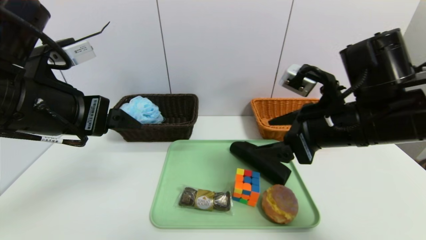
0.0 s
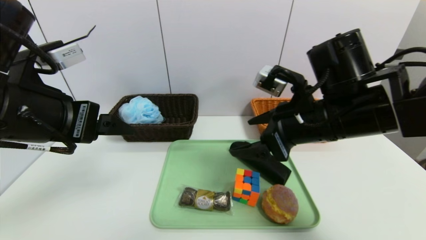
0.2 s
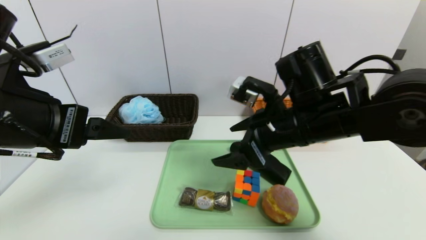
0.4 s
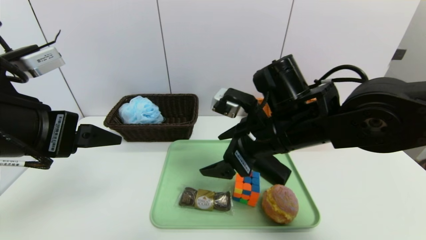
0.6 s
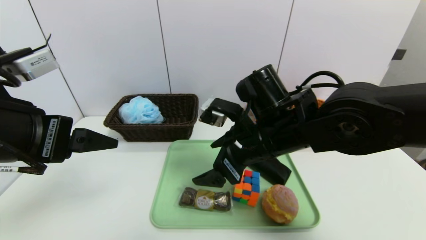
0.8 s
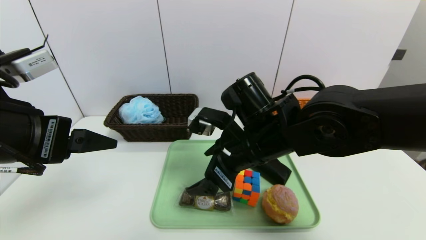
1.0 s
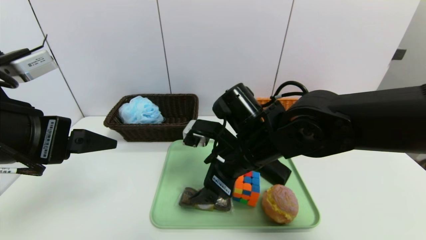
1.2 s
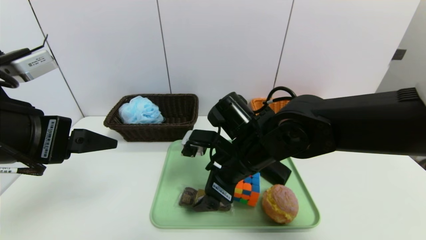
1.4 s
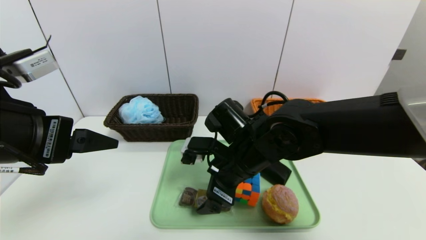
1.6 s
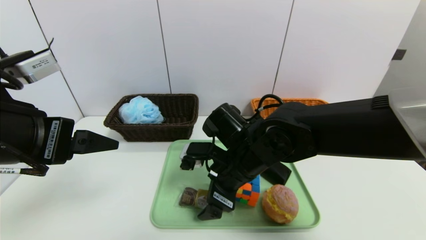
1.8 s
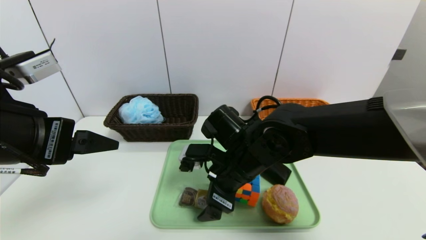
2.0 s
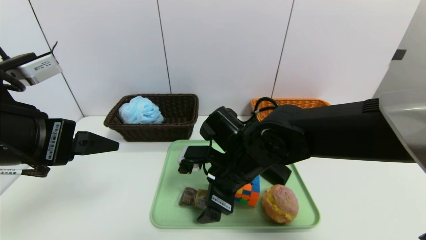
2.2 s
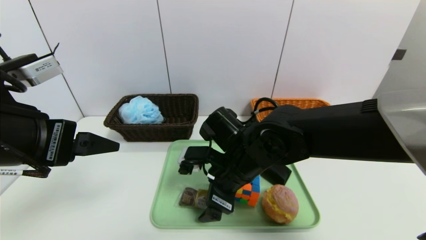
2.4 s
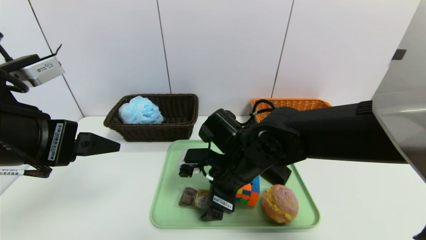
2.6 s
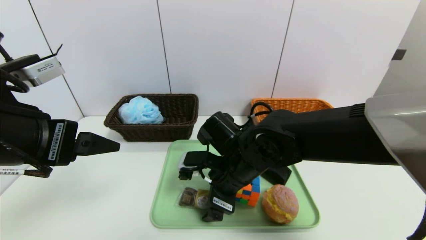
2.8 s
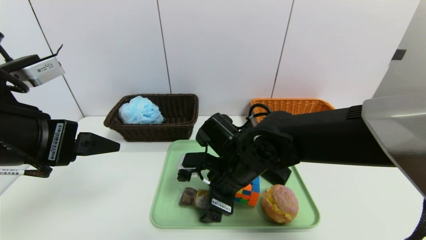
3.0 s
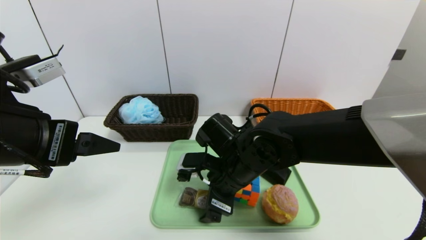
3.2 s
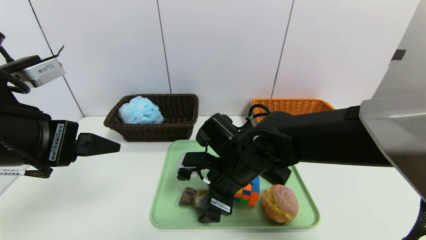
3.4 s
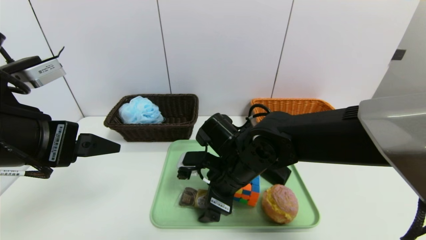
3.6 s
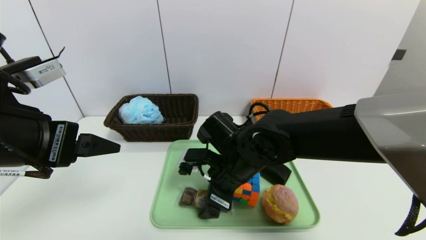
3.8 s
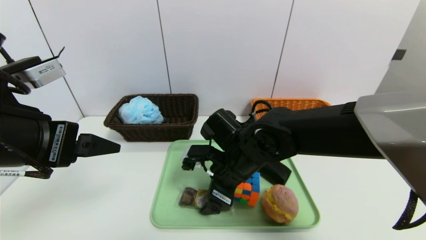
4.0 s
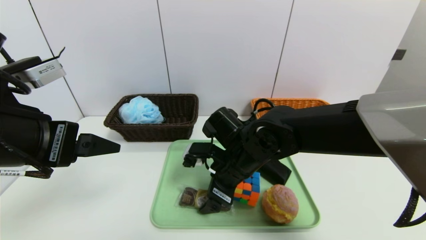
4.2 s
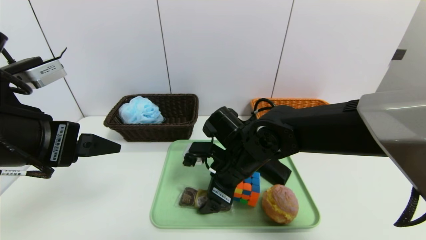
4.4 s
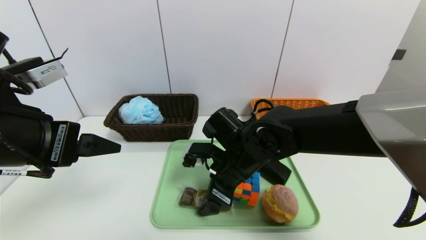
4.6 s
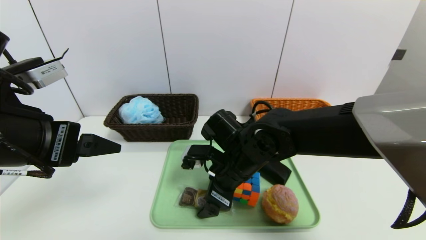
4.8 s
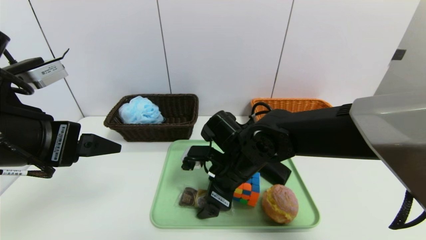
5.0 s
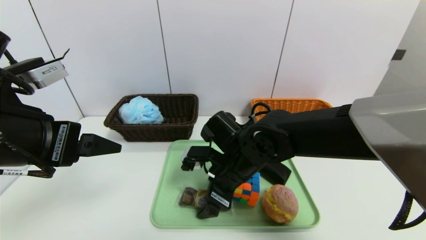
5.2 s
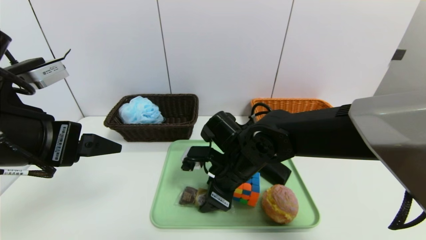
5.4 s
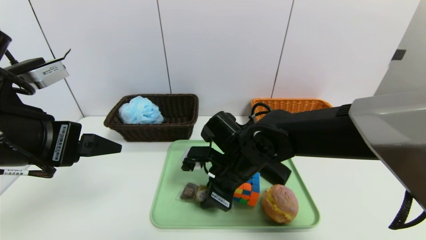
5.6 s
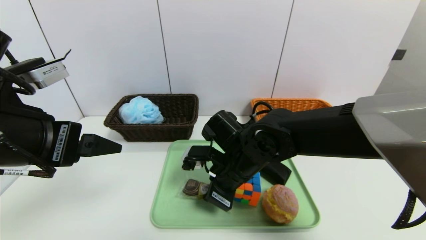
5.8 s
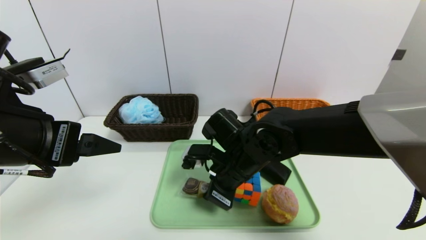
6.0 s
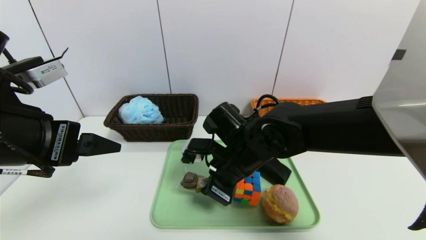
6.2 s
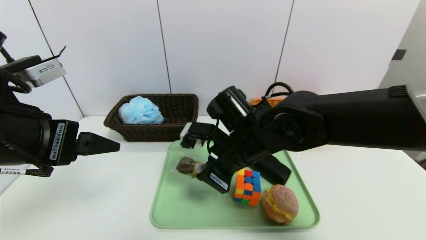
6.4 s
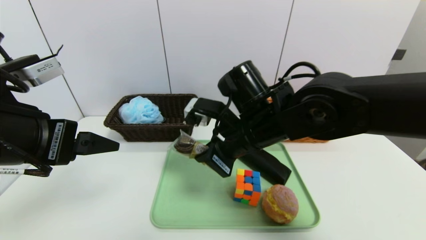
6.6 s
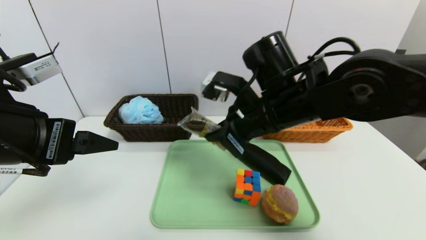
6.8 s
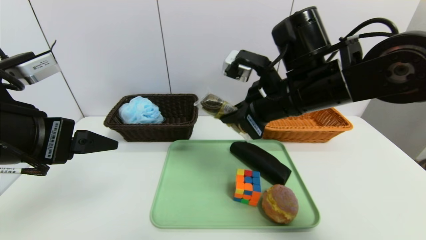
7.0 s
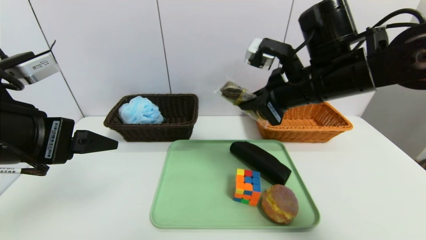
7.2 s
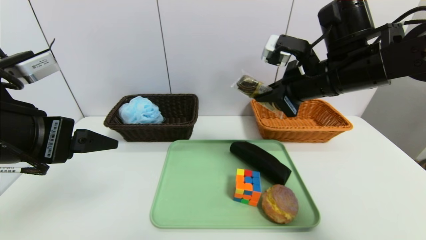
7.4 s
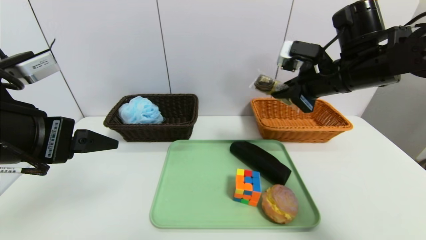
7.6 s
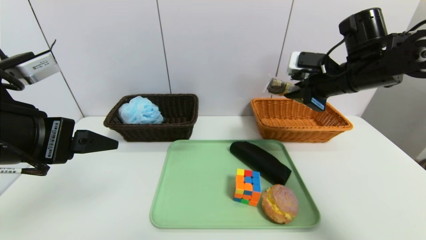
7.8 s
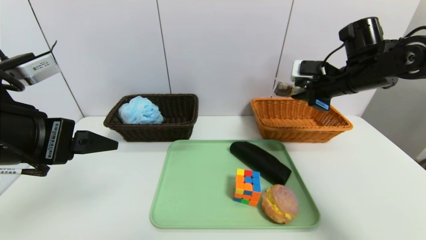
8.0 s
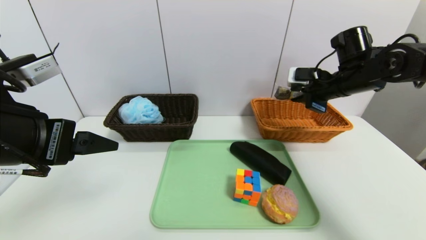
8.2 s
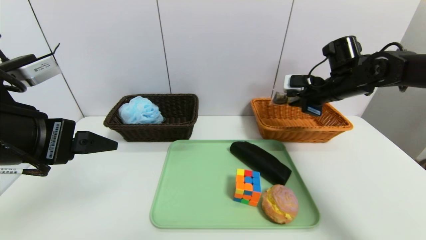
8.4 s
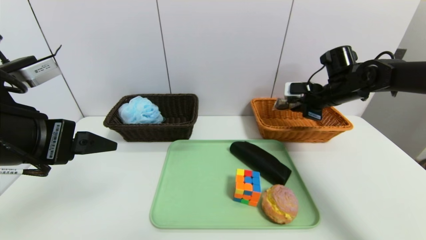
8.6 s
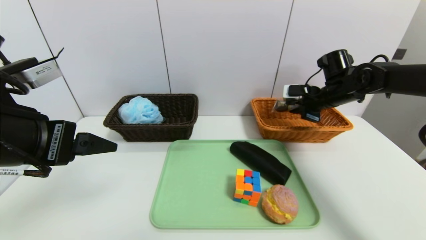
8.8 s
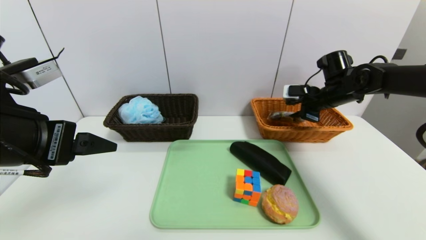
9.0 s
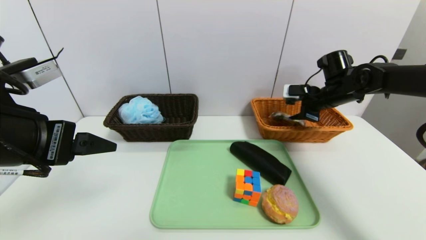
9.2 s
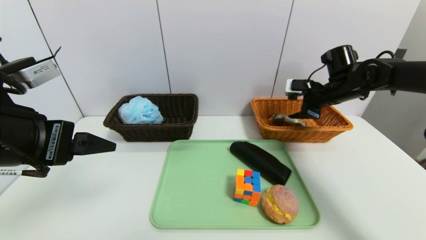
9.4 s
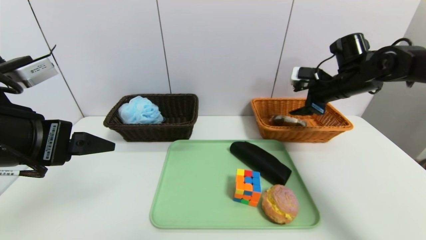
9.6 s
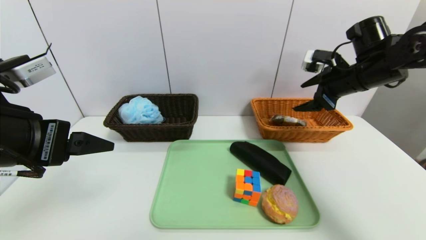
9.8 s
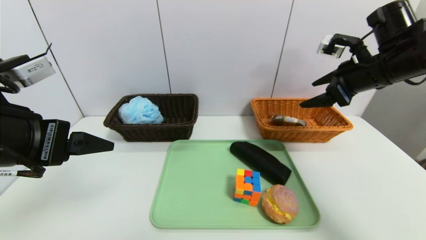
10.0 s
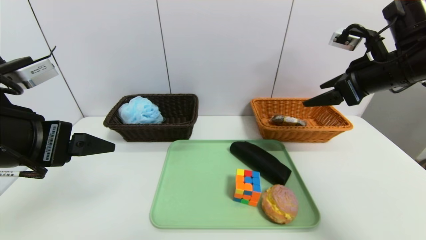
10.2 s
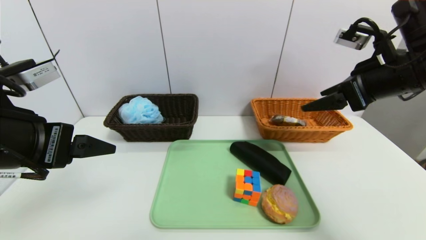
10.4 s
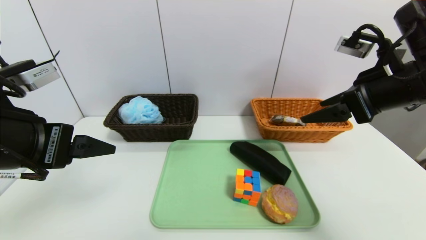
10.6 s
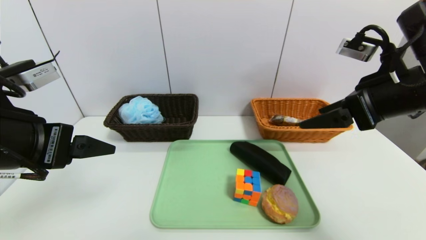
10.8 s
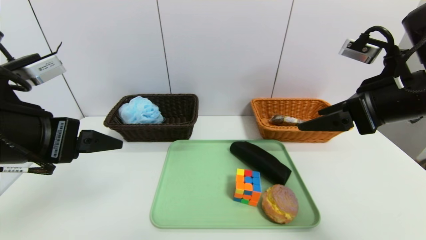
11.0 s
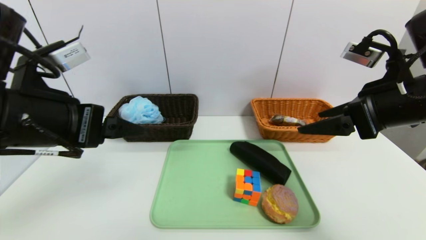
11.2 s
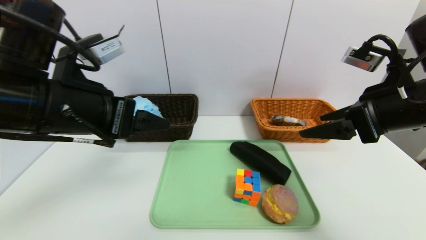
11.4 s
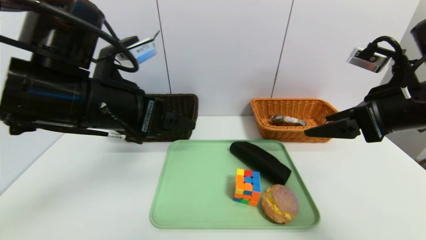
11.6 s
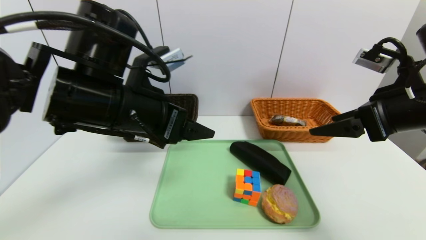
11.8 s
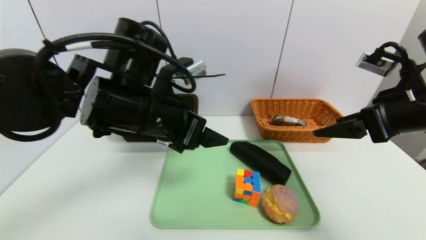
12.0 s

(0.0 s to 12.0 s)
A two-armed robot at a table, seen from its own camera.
Task of the whole recording: place the food in the right basket with the right gripper, and place the non food items in the left basket with the left gripper.
Step, 0.0 s - 9.2 s: Grasp the chocolate and put it in the right basket.
0.0 s - 1.6 s: The right gripper heads to the left and downward, covering some 15 cm.
1.6 s - 4.4 s: The grippers stay close to where they were, moving slightly.
4.4 s - 6.0 s: The right gripper closes.
6.0 s - 7.6 s: The right gripper is displaced to the right and upward by roughly 25 cm.
7.6 s - 9.0 s: The right gripper travels forward, downward and to the right by approximately 15 cm, and opens.
9.0 s - 10.4 s: The right gripper is displaced backward and upward by about 20 cm, and opens up.
10.4 s - 12.0 s: The right gripper moves approximately 5 cm. The left gripper goes about 15 cm to the right and forward.

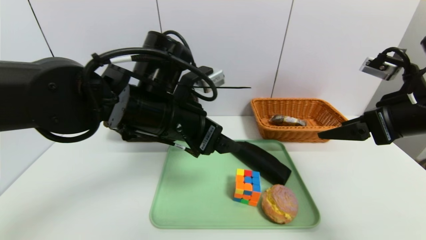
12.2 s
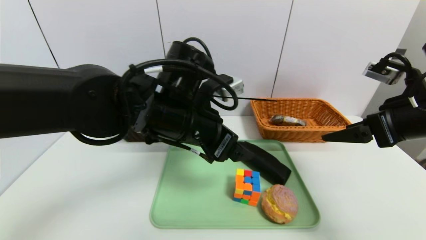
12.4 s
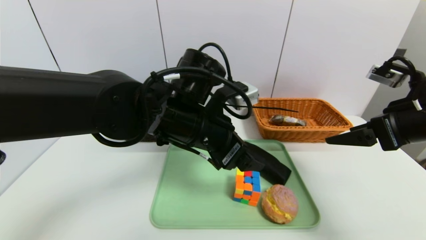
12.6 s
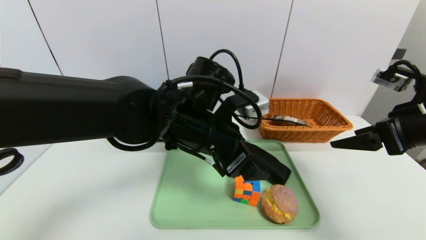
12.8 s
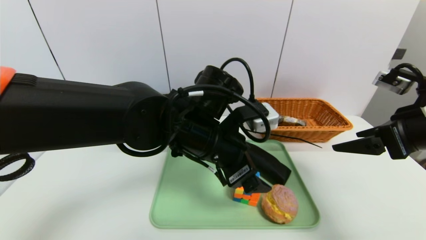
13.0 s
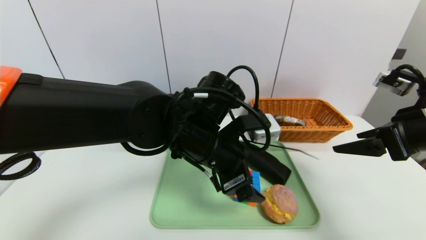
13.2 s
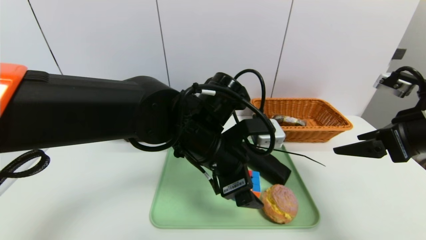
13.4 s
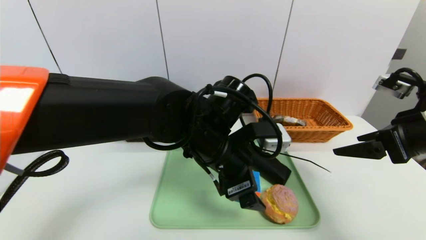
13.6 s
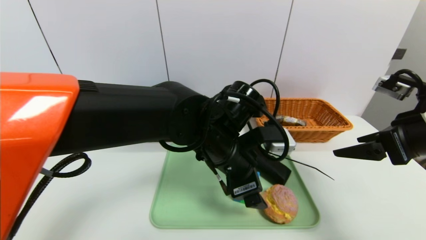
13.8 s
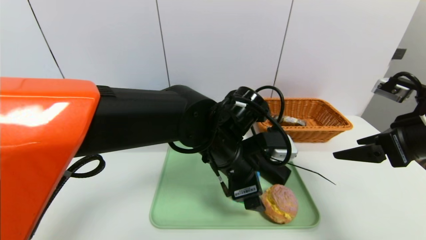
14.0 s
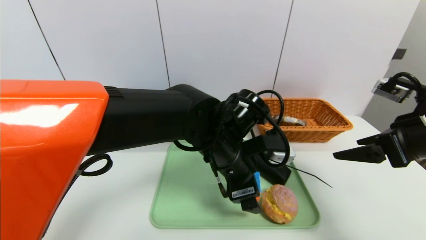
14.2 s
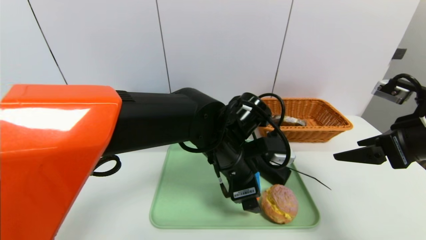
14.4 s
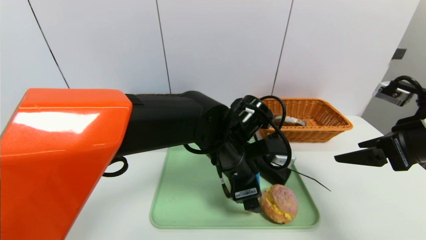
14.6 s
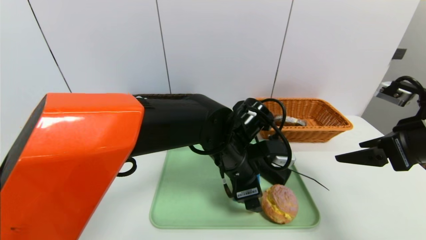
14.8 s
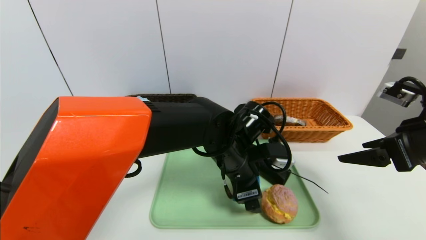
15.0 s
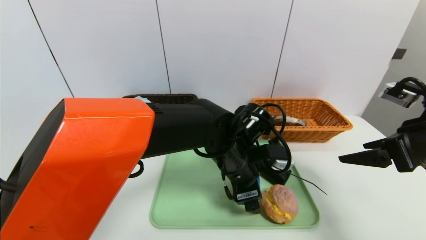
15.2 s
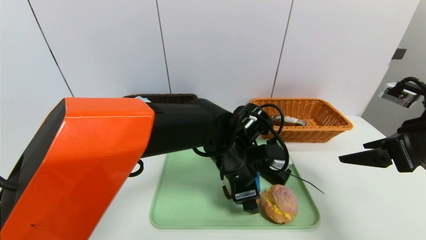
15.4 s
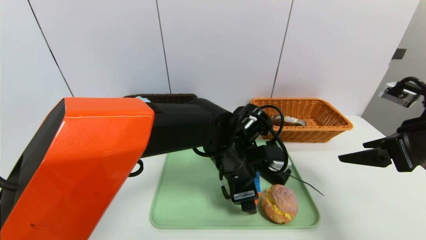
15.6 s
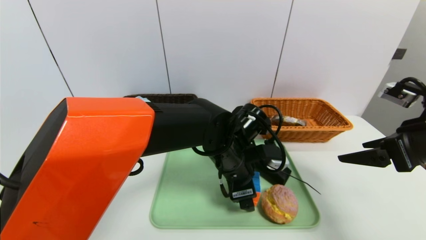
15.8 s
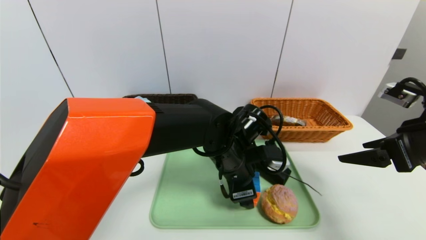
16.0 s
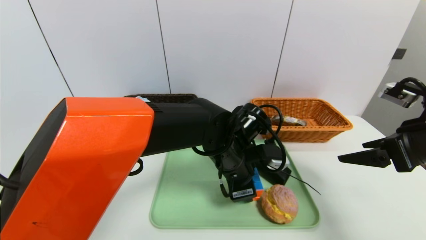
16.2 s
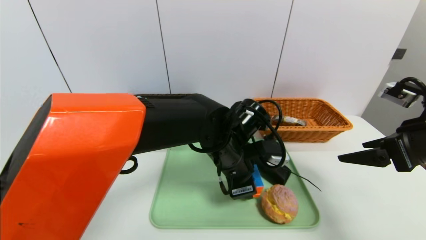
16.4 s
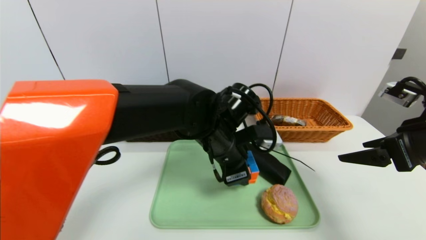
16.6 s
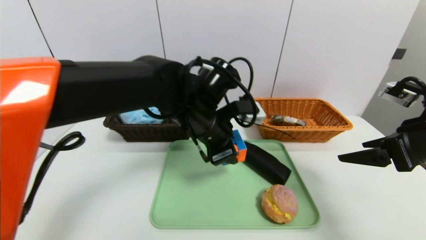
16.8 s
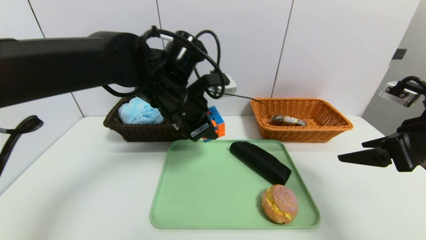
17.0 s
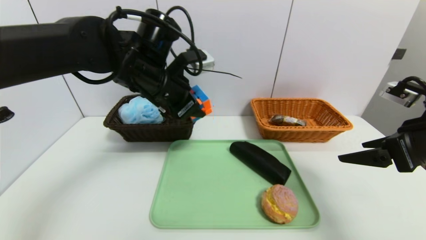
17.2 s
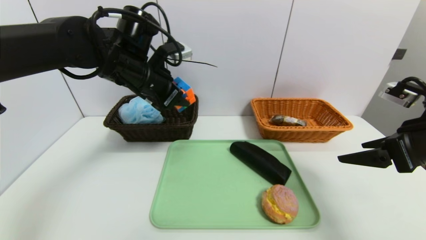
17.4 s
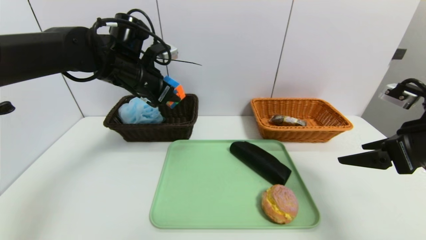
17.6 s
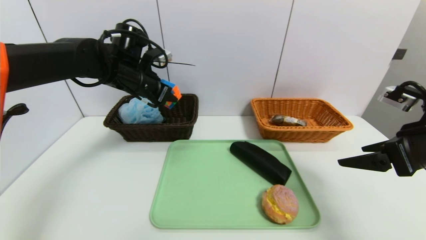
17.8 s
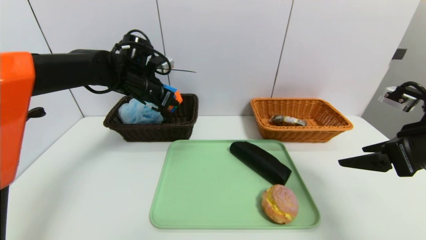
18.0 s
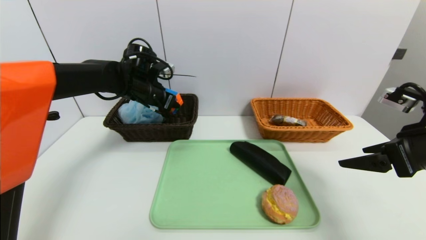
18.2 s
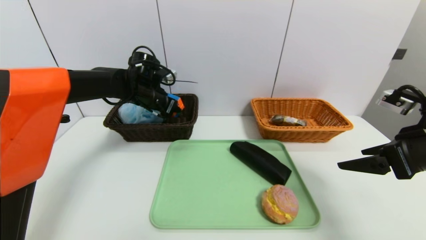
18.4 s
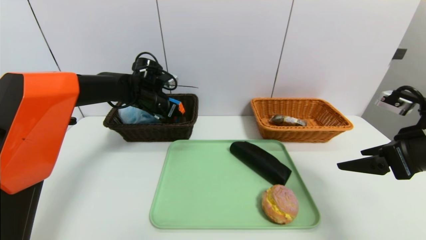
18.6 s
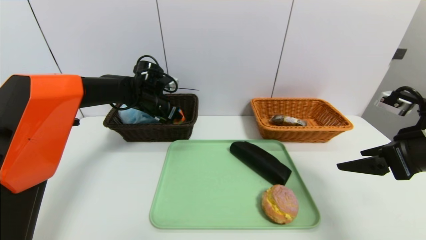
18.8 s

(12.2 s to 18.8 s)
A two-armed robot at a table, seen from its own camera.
Task of the whole recording: place the food in the right basket with the right gripper, and place the non food items in the left basket with the left gripper.
12.2 s - 13.8 s: The left gripper shifts about 10 cm to the right and downward.
13.8 s - 15.4 s: The left gripper changes place by approximately 5 cm.
15.4 s - 17.2 s: The left gripper moves to the left and upward, roughly 20 cm, and closes.
17.2 s - 18.8 s: The left gripper shifts roughly 20 cm forward, downward and to the left.
